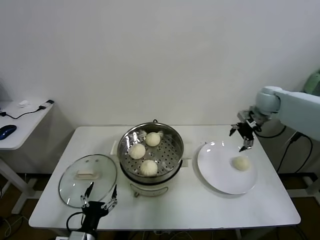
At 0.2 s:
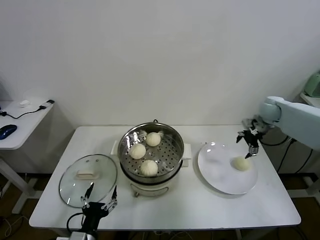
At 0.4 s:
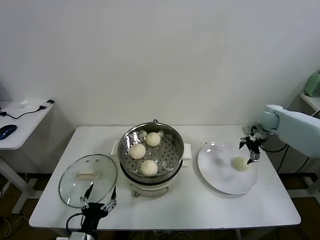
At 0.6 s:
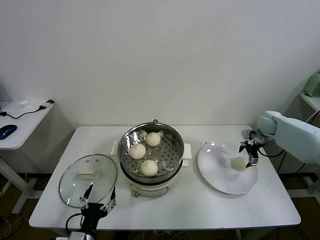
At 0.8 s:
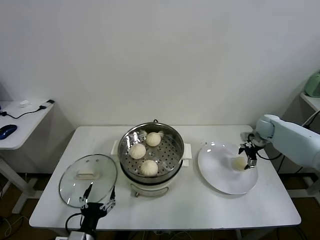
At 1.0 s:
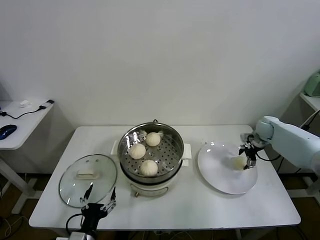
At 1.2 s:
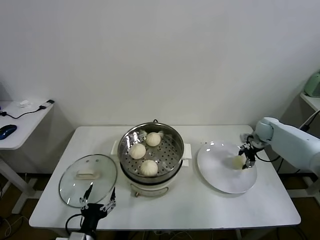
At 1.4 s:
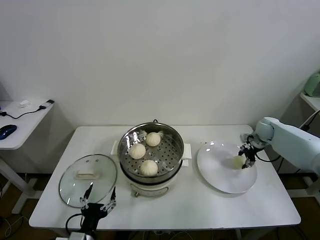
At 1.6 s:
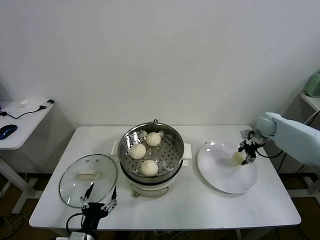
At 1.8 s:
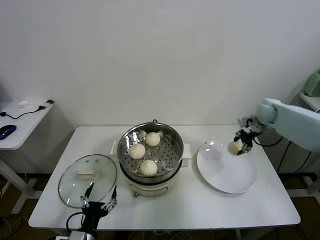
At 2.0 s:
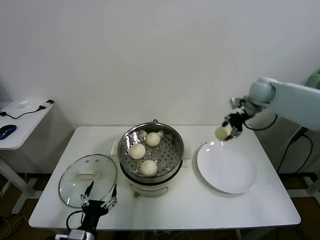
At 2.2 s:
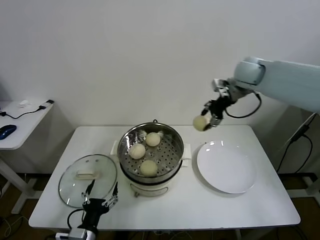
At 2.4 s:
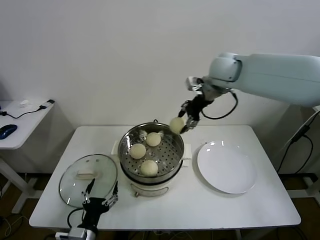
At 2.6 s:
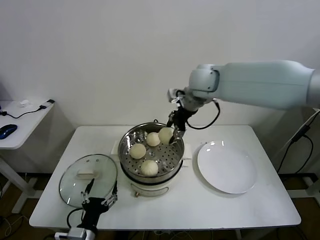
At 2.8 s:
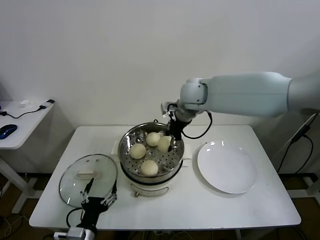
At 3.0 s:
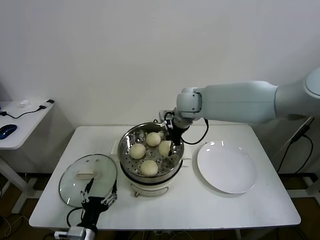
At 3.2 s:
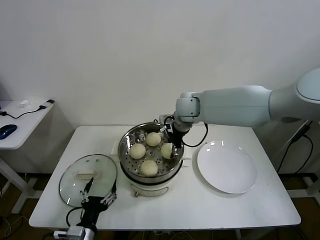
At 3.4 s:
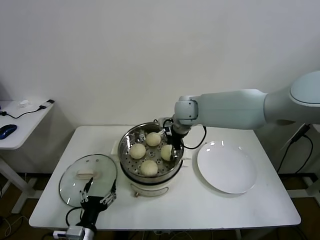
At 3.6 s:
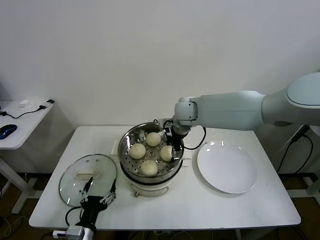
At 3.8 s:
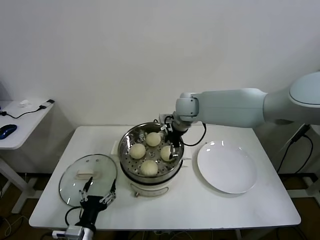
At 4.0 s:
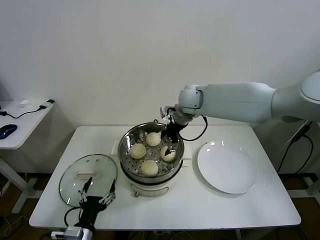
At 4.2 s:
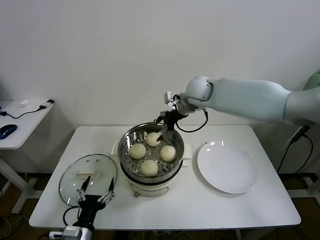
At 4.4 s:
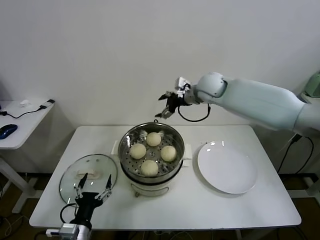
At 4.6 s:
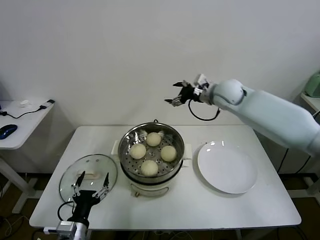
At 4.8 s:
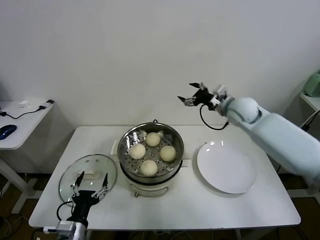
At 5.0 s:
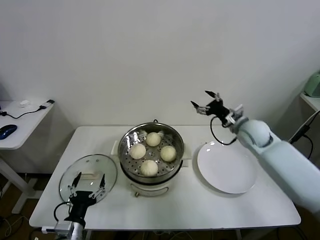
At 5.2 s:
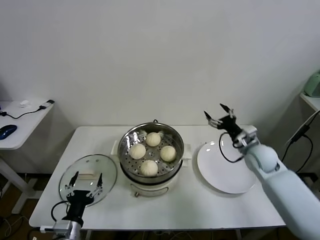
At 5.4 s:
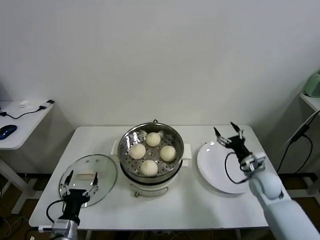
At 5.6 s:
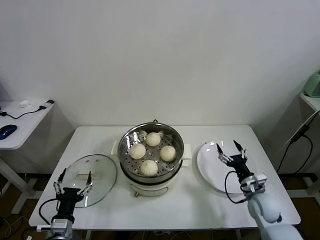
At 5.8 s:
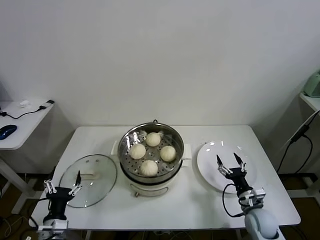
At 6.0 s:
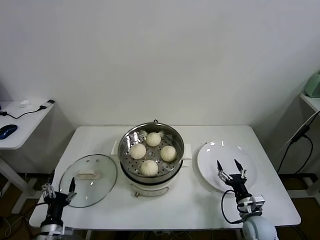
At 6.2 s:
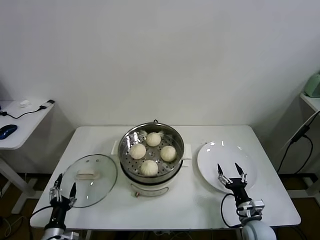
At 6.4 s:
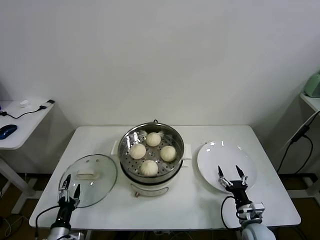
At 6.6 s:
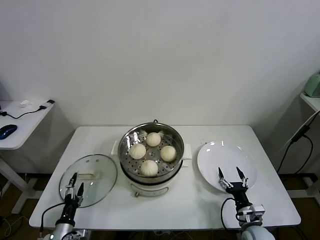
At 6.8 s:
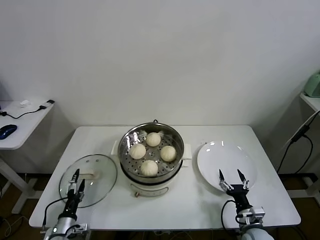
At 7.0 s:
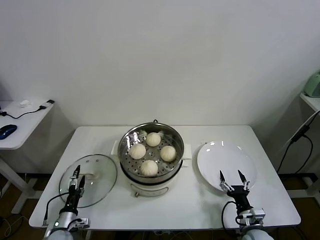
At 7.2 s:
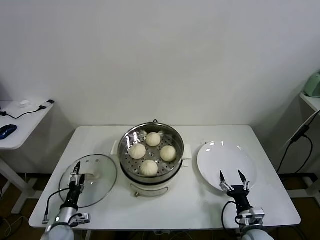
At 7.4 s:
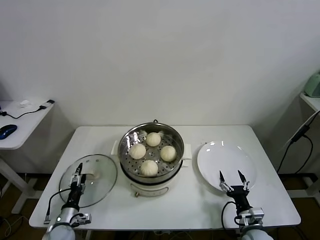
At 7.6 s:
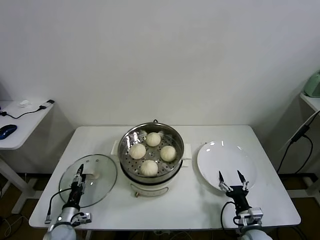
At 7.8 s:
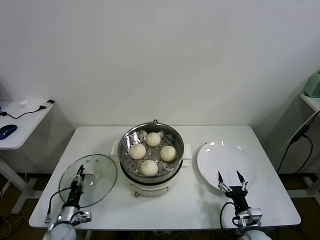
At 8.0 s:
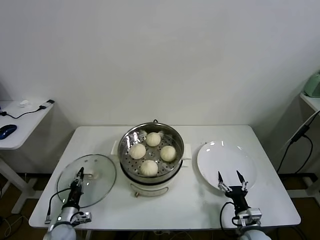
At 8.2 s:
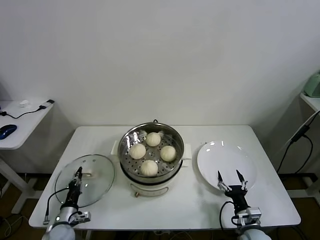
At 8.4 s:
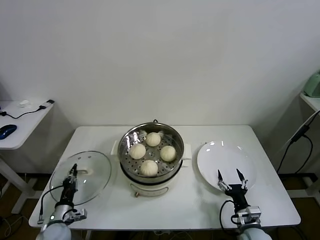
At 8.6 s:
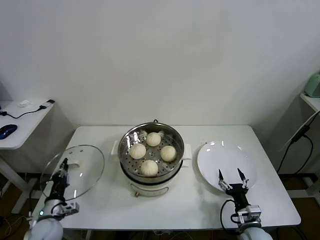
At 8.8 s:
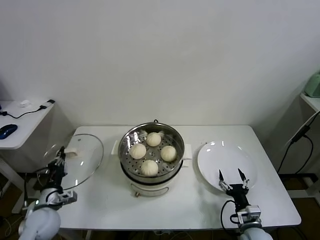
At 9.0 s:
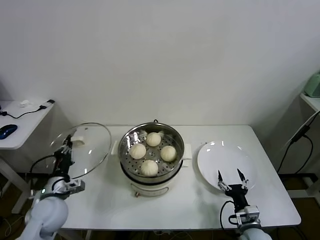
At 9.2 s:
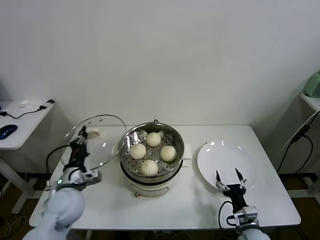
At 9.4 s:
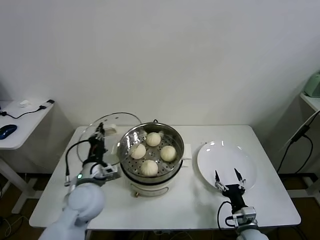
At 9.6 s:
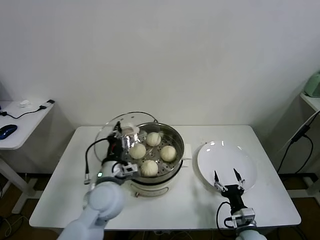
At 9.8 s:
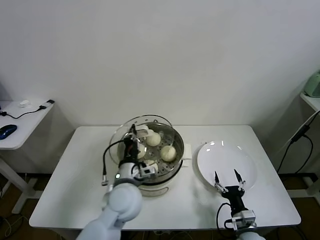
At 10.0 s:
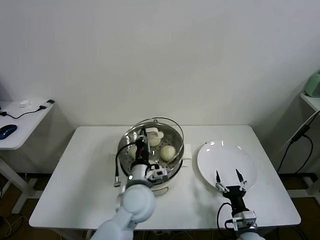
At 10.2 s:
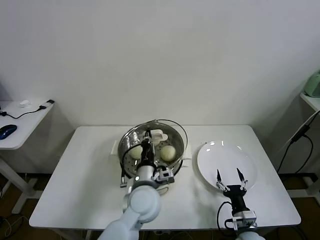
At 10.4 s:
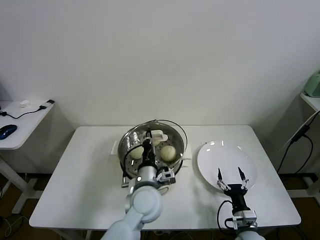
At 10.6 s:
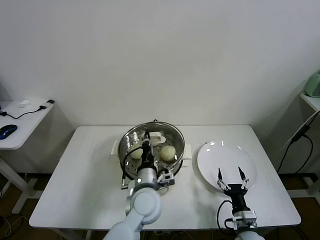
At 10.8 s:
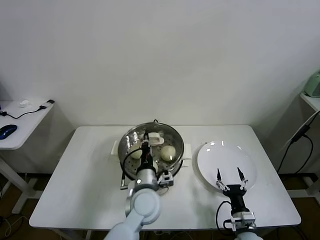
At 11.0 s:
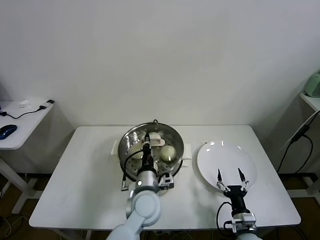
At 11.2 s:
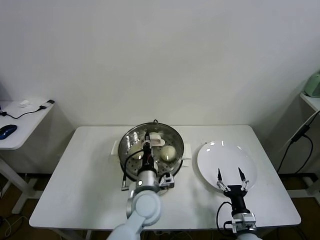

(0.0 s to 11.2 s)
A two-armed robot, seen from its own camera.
Task of the whole recording: take steamed baozi put them in steamer.
Step, 0.0 s - 1.2 s: Grasp the baozi in the plate with right gripper.
Step, 1.4 s - 3.8 s: Place the baozi on the steamer with right gripper.
Step, 4.0 s - 8.2 s: Grasp the pot lid with left gripper.
0.0 s - 1.6 s: The right gripper shifts approximately 10 cm downward, and closes up.
1.6 s - 3.2 s: The right gripper goes roughly 35 cm to the left.
3.2 s - 4.8 s: The right gripper moves to the right, roughly 20 cm, and opens up.
4.8 s - 6.4 s: The left gripper goes some 15 cm downward and to the left. Meanwhile the right gripper moves downward and backward, some 40 cm.
6.4 s - 8.0 s: The left gripper is displaced forward by about 10 cm, and closes its fingers.
8.0 s - 9.6 s: The left gripper travels upward and to the right by roughly 30 cm.
9.6 s - 11.2 s: The left gripper travels to the right and downward by some 15 cm.

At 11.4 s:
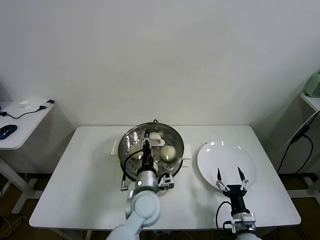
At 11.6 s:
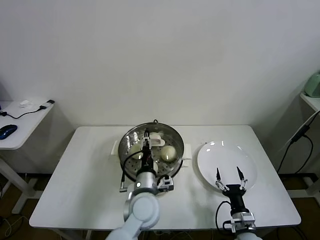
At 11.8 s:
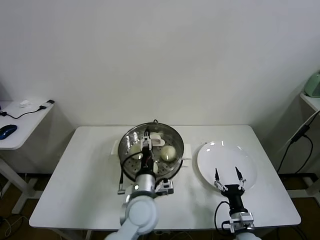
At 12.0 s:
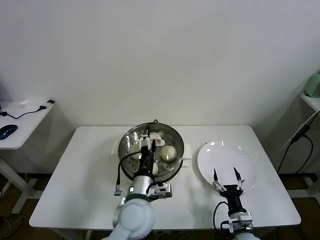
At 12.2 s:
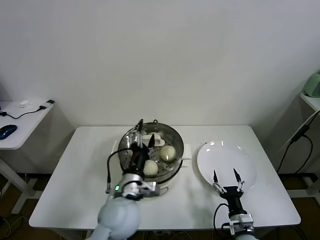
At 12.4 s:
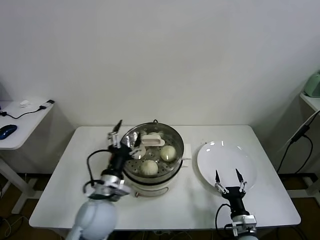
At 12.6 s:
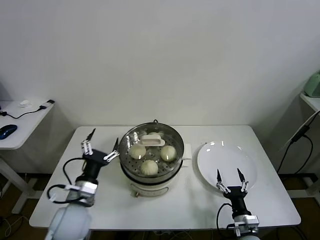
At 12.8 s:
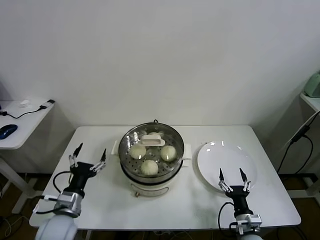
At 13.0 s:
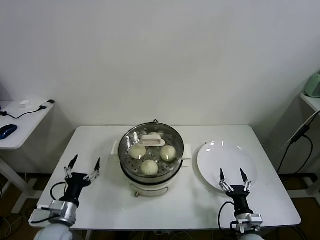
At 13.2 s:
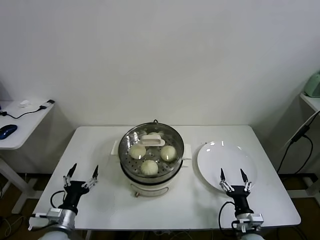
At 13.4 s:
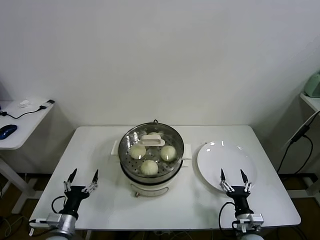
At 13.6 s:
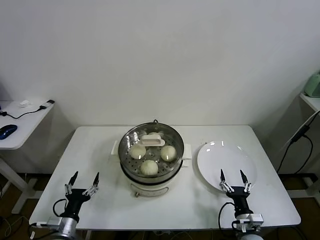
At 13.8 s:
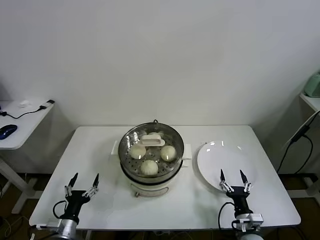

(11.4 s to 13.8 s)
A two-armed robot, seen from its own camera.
Task of the whole recording: take steamed baozi put them in steamer.
11.4 s - 12.6 s: The left gripper moves to the left, some 15 cm, and opens up.
12.6 s - 13.8 s: The left gripper goes some 20 cm downward, to the left and backward.
